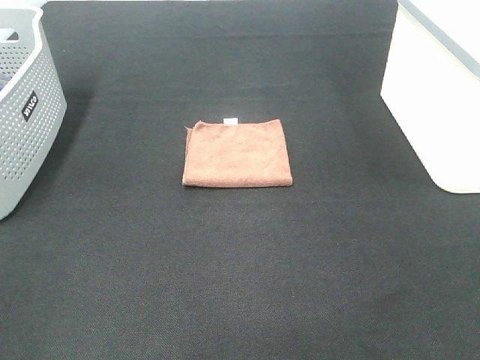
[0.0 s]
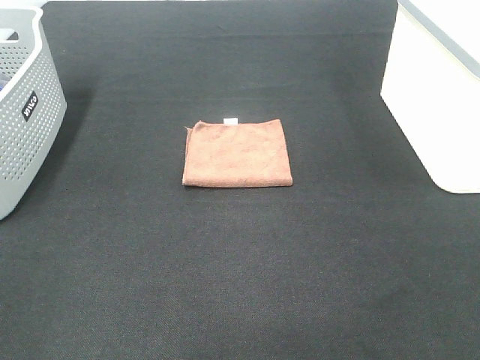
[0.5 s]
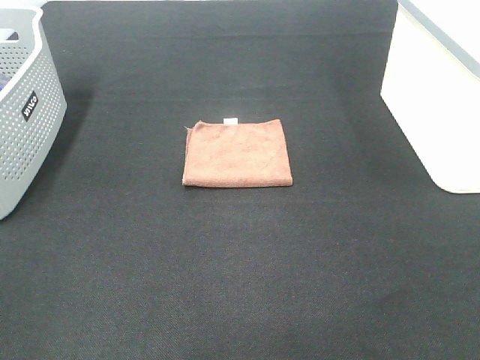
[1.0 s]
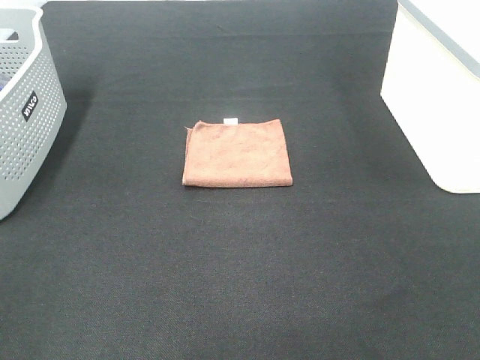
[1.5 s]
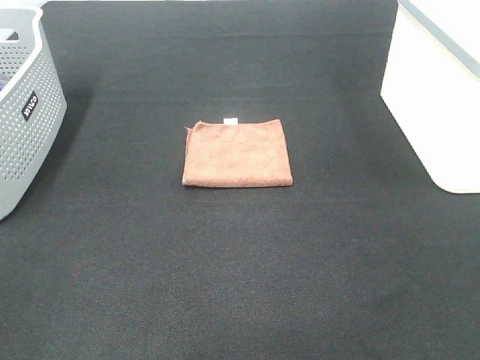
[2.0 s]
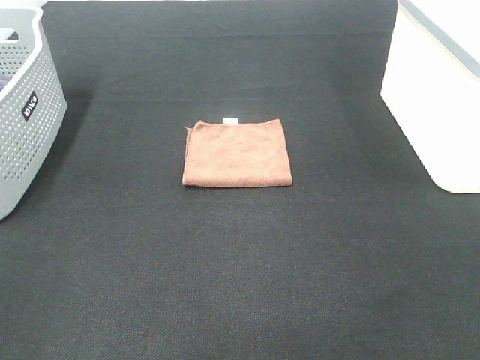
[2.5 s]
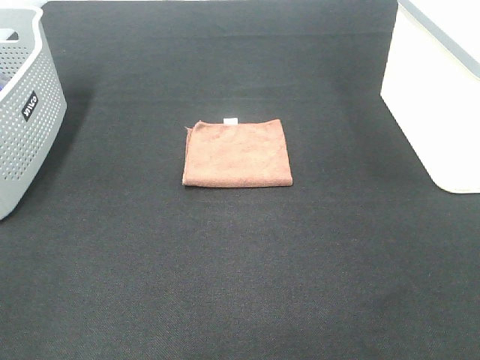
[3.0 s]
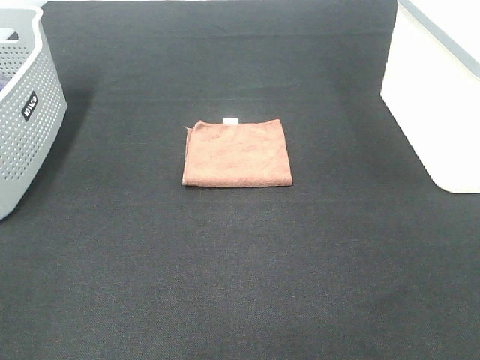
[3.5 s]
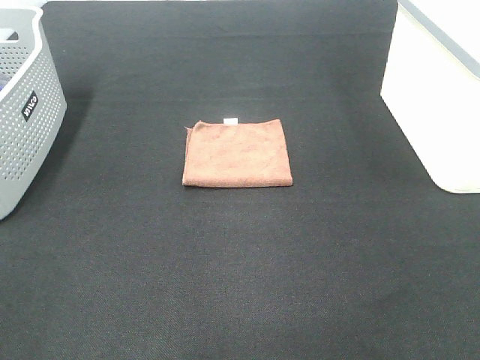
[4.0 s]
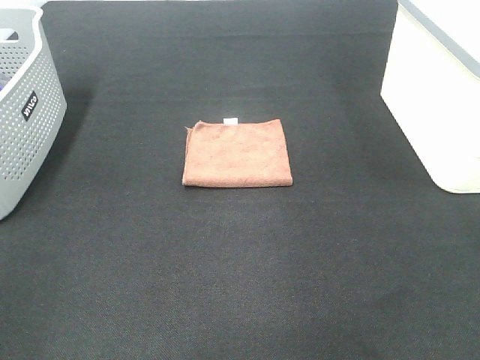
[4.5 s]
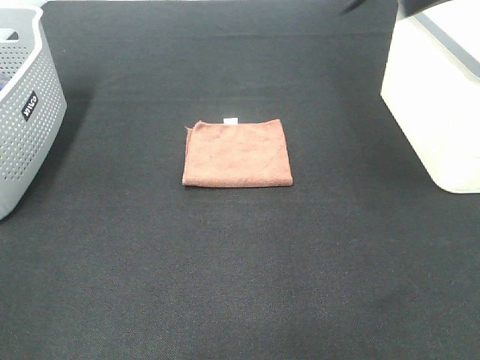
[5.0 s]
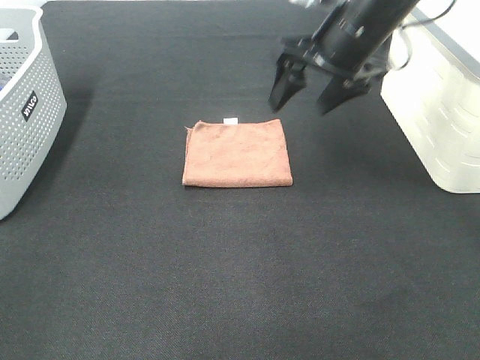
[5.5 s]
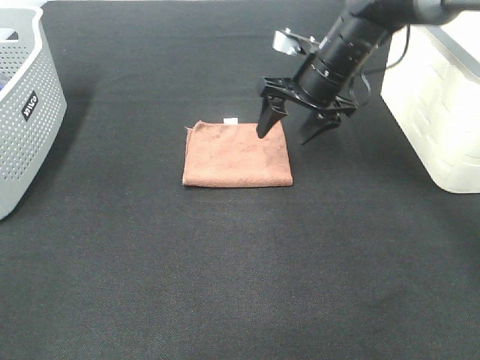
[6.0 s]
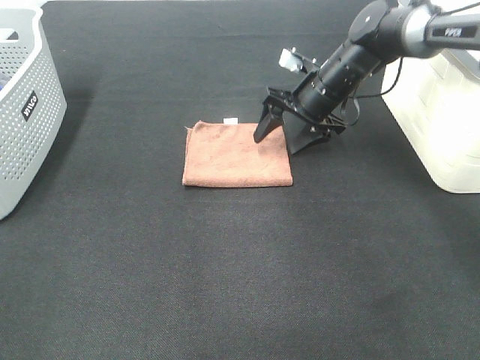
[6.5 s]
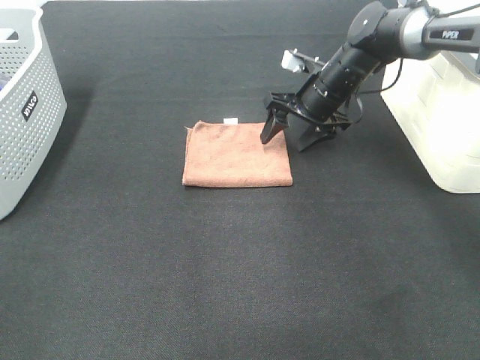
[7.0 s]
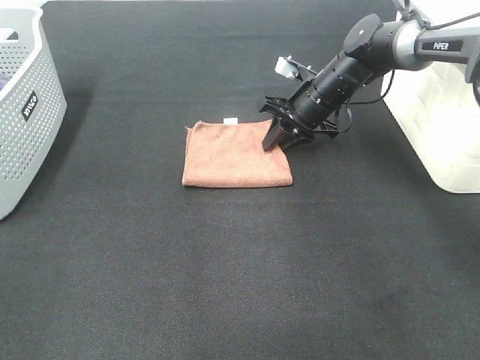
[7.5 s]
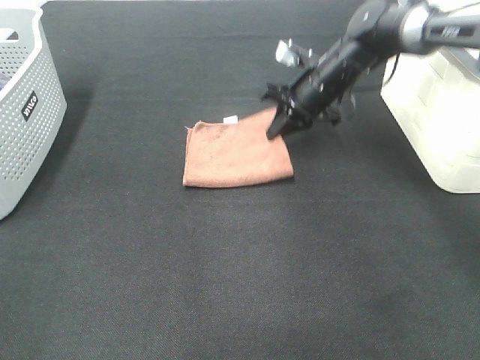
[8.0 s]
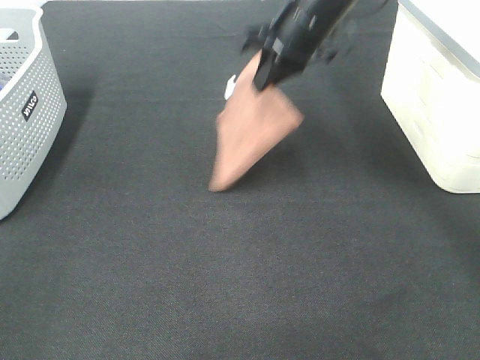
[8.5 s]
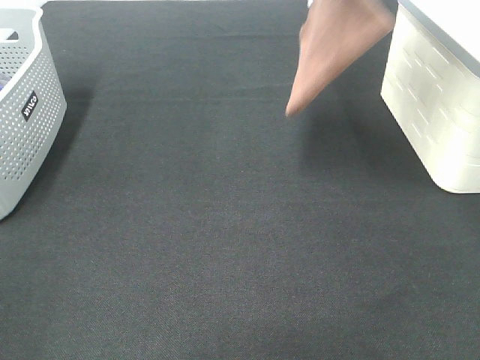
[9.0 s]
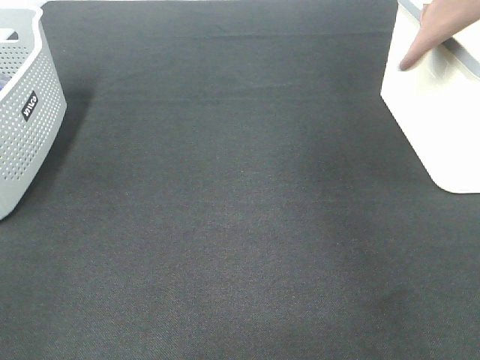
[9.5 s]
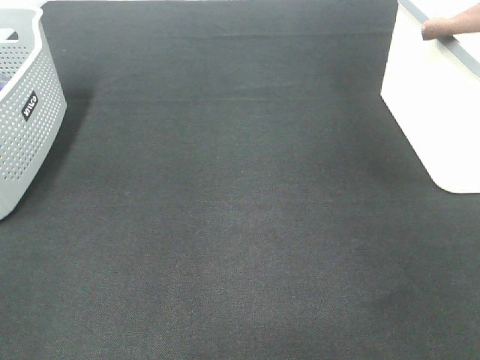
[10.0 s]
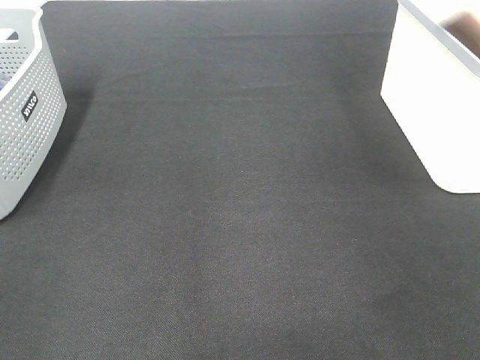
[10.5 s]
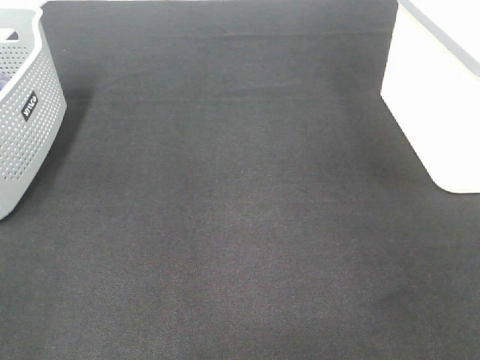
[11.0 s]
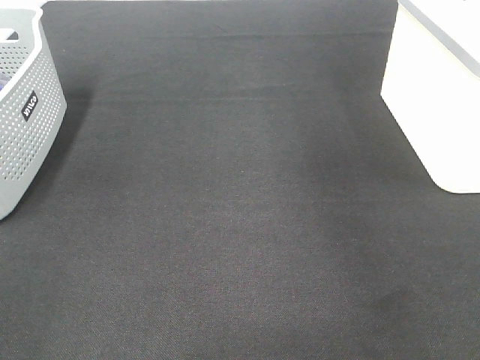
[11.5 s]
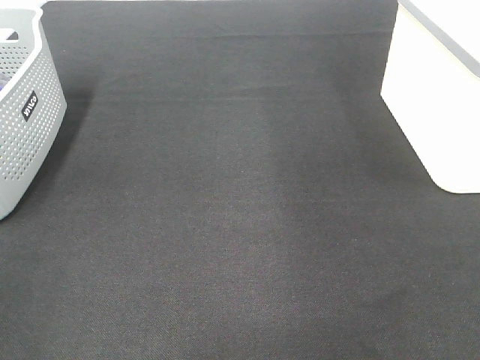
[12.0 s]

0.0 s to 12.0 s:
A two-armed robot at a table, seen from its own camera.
Step, 0.0 to 7.5 s: Right hand: grab the folded brown towel.
Step, 8.0 to 11.0 s: Right hand: place the brown towel in right basket.
0.0 to 2.0 s: The two grippers keep their place.
4.0 to 6.0 s: The right gripper shifts roughly 40 cm forward and downward.
6.0 to 8.0 s: The right gripper closes.
8.0 to 10.0 s: The right gripper heads to the right and upward, covering approximately 40 cm.
10.0 to 12.0 s: The right gripper moves to the left and backward, roughly 20 cm, and opens.

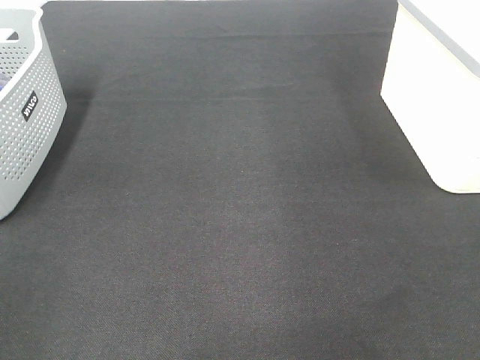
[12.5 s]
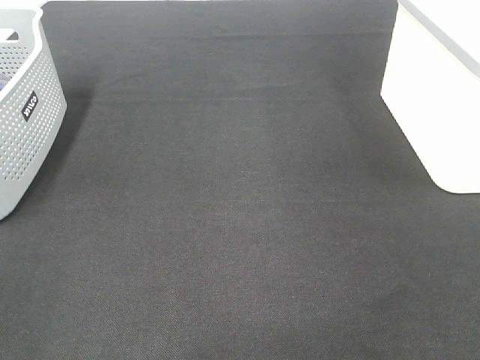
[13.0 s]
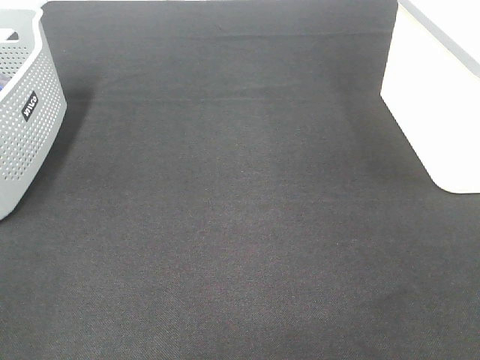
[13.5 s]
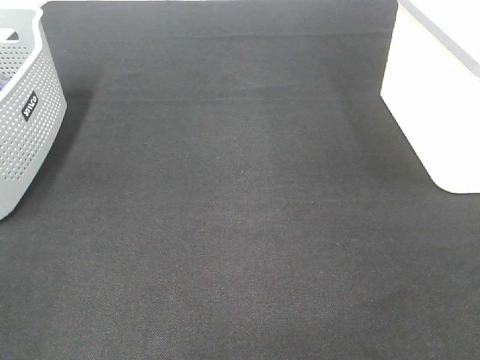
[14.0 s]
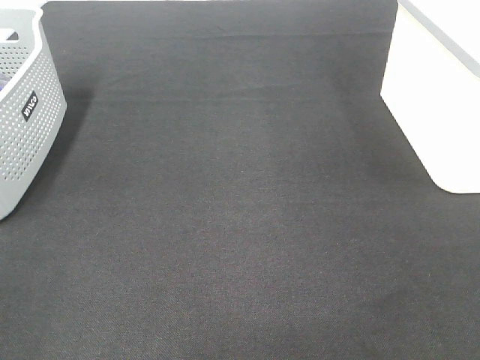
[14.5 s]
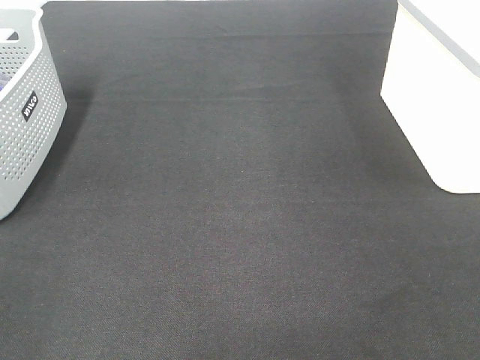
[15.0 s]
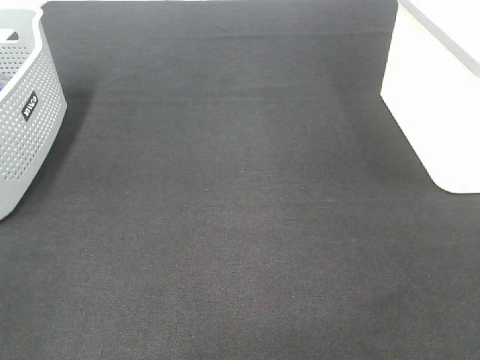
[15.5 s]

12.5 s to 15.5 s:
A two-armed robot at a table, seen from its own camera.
14.0 to 15.5 s: Neither gripper changes place.

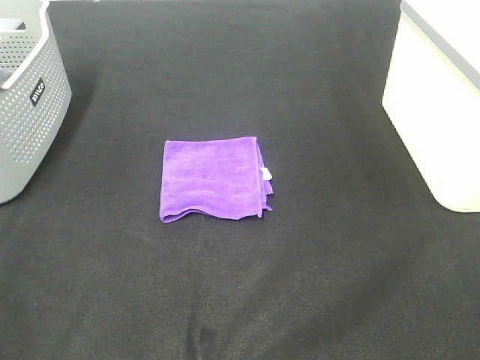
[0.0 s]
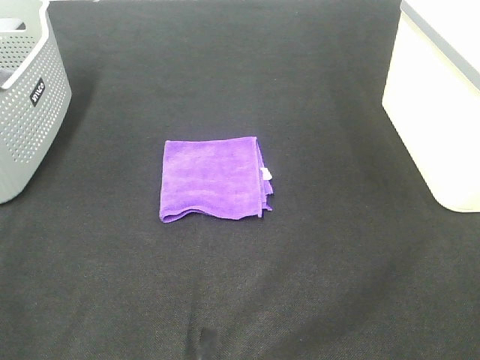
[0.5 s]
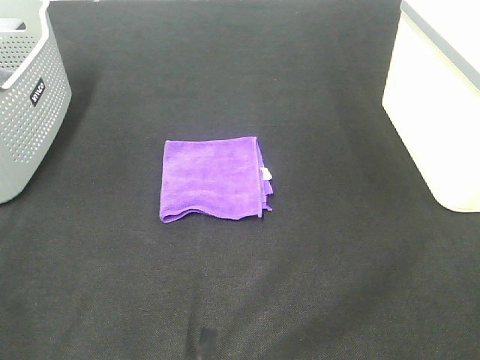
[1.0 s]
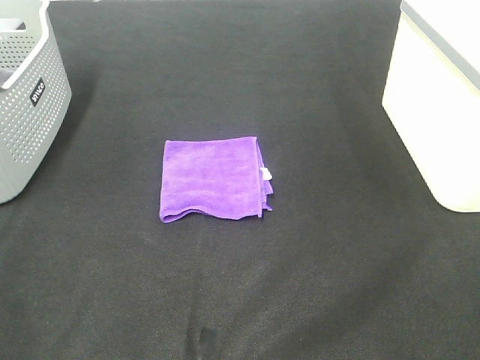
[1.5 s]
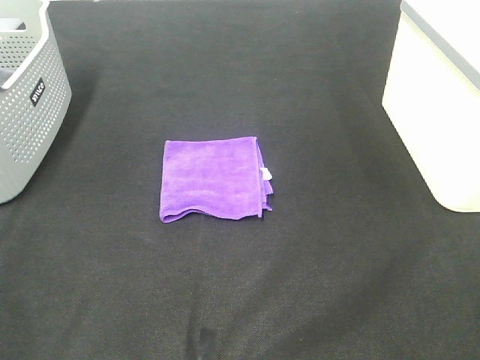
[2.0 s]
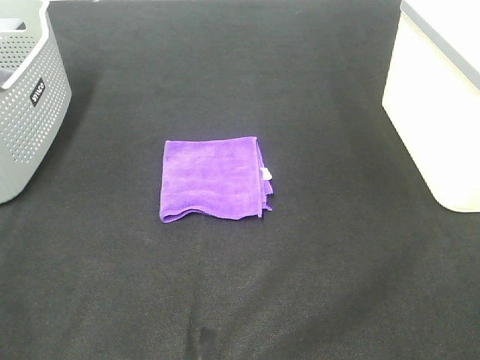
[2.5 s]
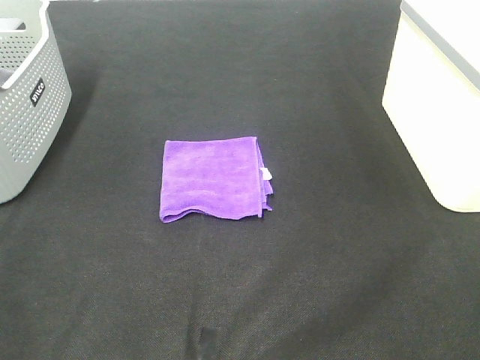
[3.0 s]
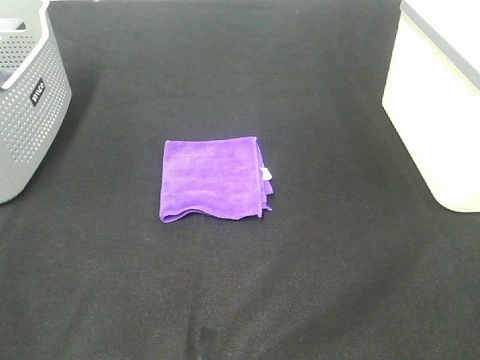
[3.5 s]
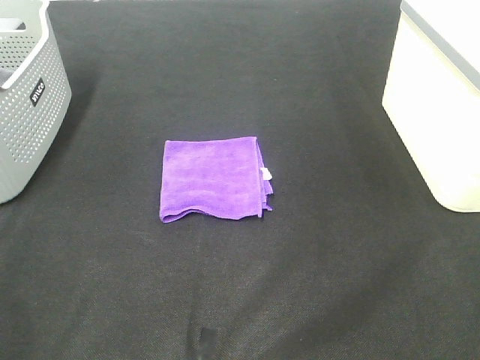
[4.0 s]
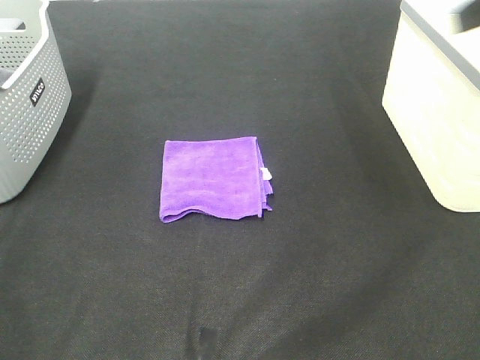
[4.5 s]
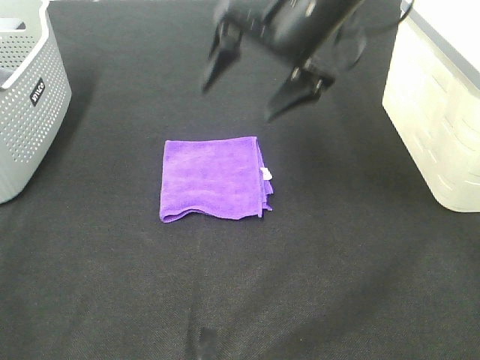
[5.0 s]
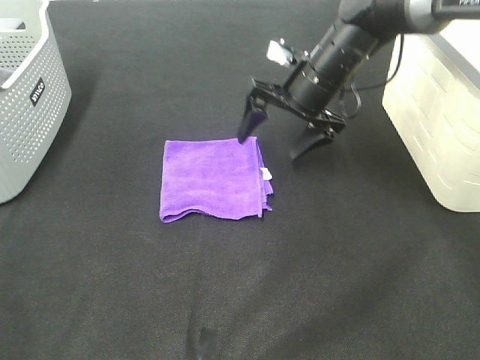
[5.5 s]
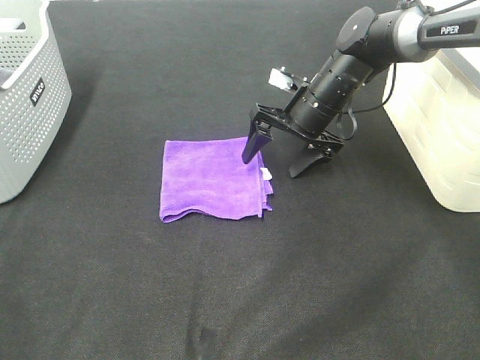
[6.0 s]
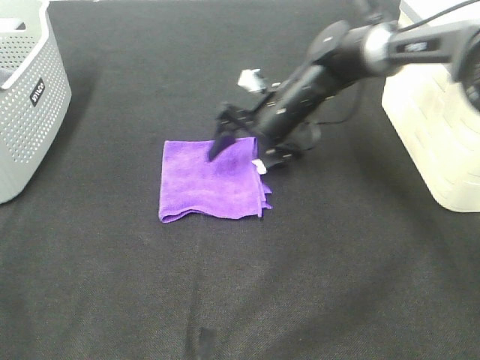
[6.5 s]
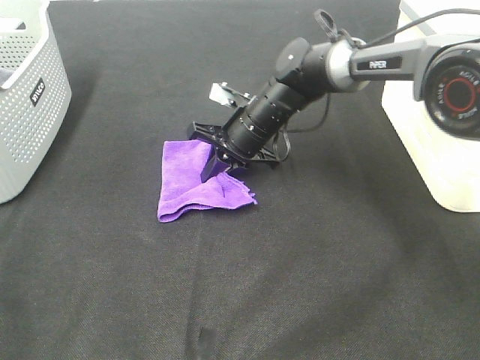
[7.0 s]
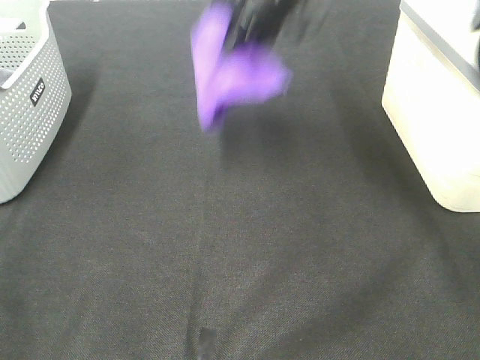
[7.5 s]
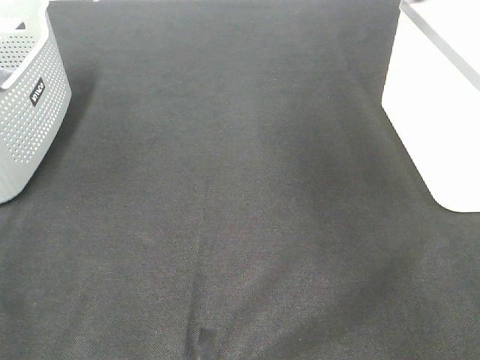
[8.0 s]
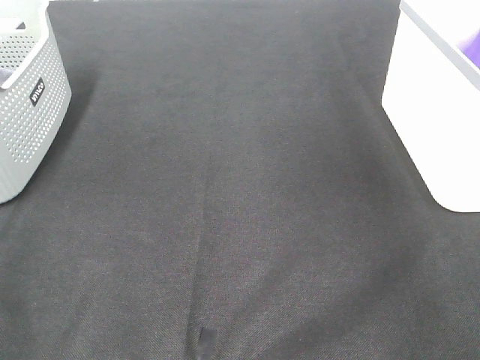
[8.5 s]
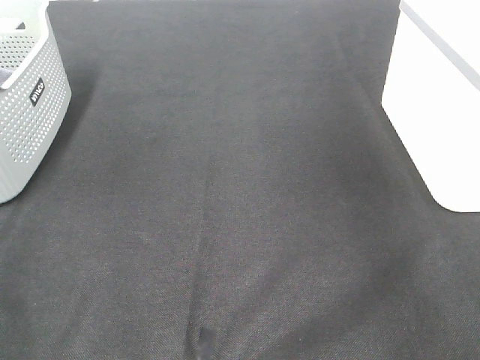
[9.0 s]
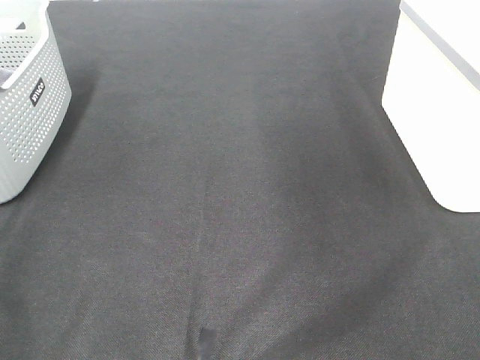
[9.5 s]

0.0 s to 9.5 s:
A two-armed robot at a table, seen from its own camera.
Step, 0.0 to 6.5 s: Right hand: grab the folded purple towel.
Step, 7.0 to 8.5 s: Right hand: place the purple towel in right basket.
0.0 to 2.0 s: The two grippers keep their place.
4.0 to 5.5 s: The right gripper heads forward, downward and to the left, covering about 40 cm.
5.5 to 7.5 s: The right gripper travels upward by some 15 cm, and closes.
7.5 to 9.5 s: The right gripper is displaced to the right, backward and upward by about 30 cm, and opens up.

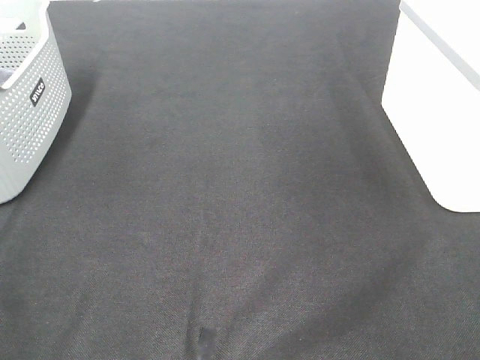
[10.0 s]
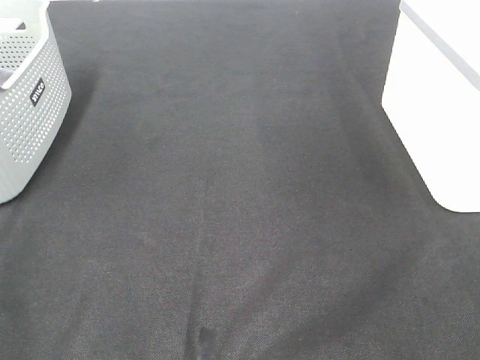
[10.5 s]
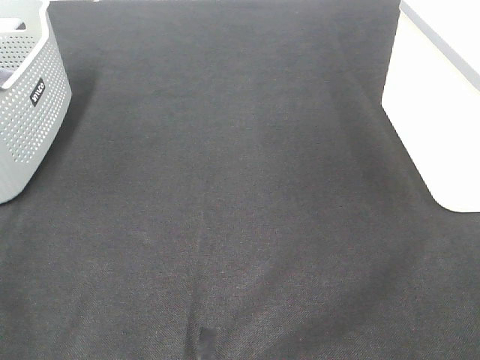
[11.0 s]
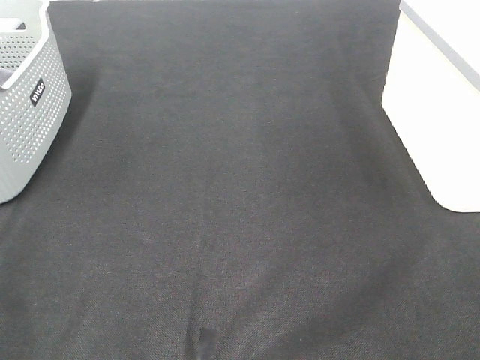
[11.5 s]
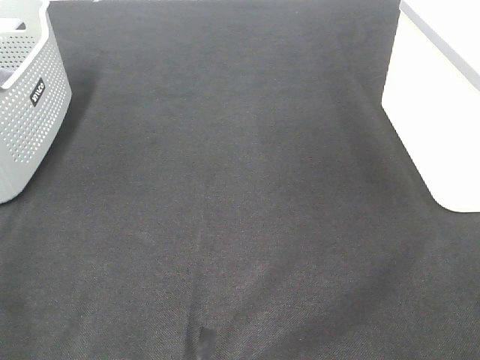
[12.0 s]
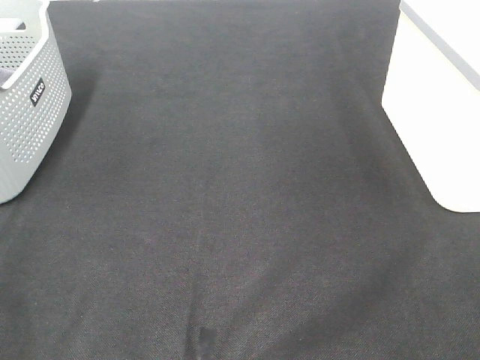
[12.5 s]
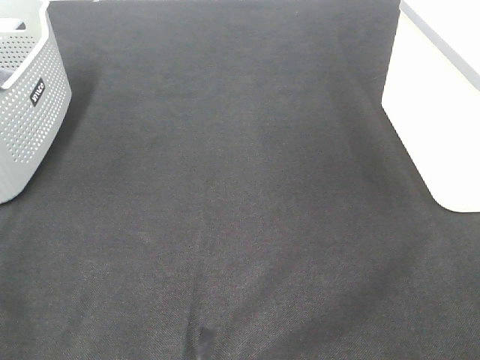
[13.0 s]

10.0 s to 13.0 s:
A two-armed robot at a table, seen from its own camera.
11.5 to 13.0 s: The two grippers keep their place.
